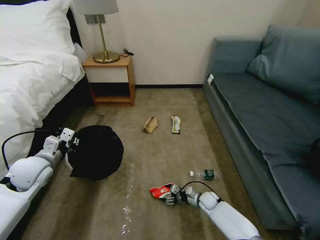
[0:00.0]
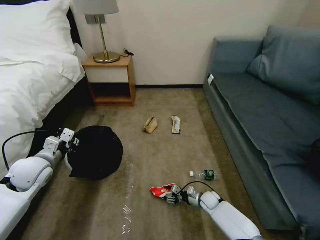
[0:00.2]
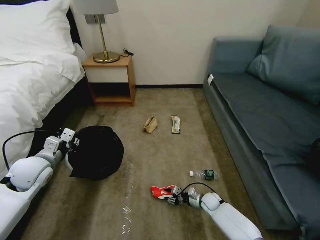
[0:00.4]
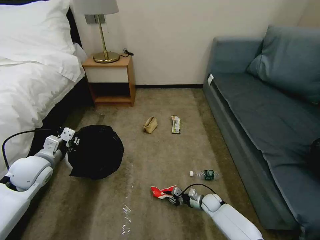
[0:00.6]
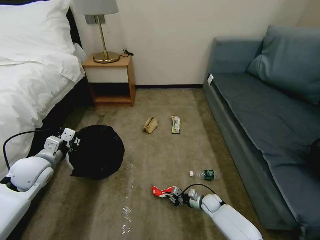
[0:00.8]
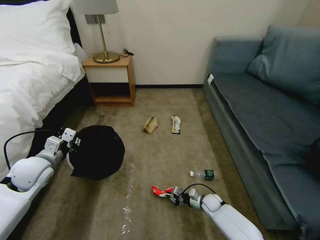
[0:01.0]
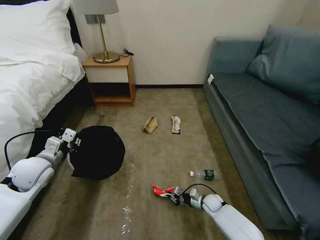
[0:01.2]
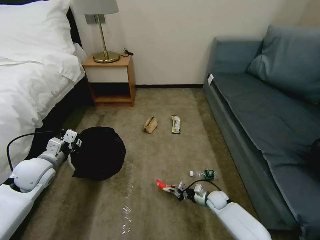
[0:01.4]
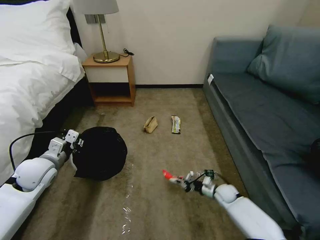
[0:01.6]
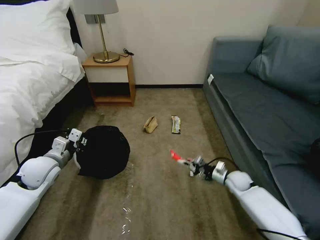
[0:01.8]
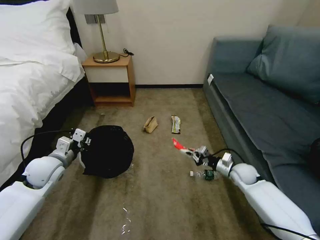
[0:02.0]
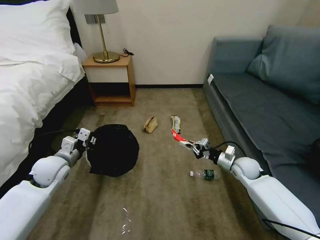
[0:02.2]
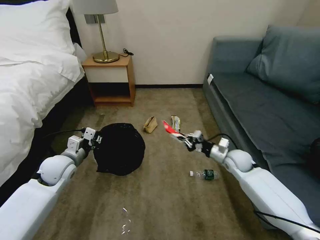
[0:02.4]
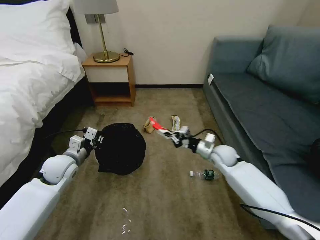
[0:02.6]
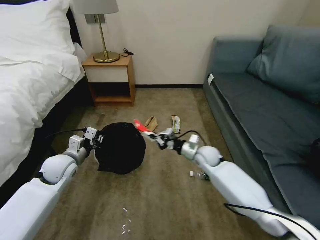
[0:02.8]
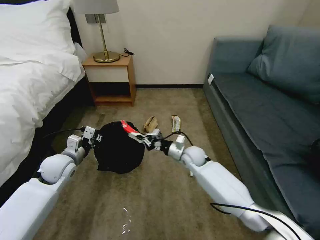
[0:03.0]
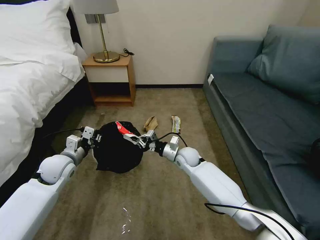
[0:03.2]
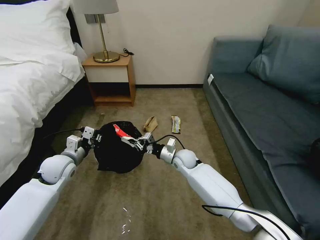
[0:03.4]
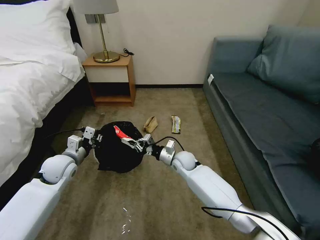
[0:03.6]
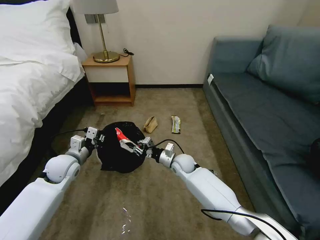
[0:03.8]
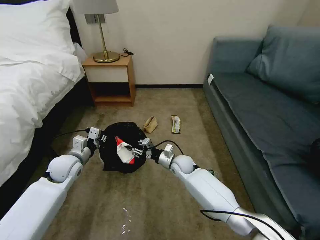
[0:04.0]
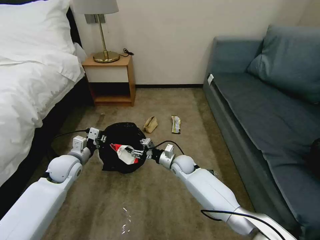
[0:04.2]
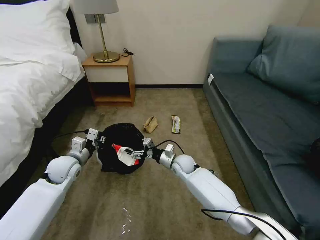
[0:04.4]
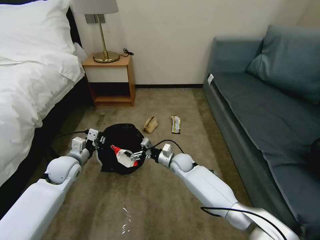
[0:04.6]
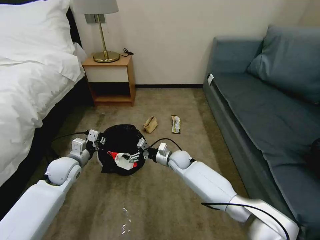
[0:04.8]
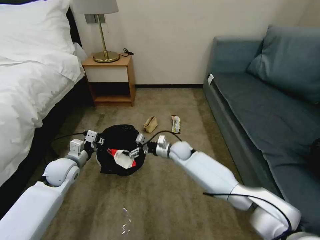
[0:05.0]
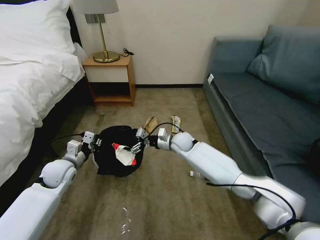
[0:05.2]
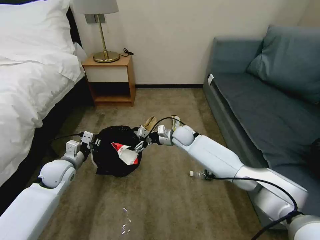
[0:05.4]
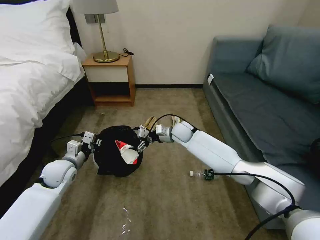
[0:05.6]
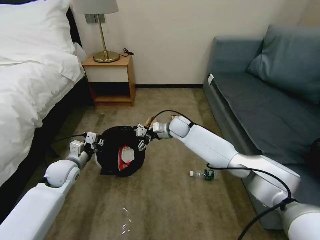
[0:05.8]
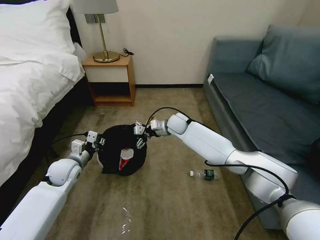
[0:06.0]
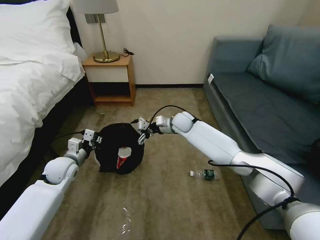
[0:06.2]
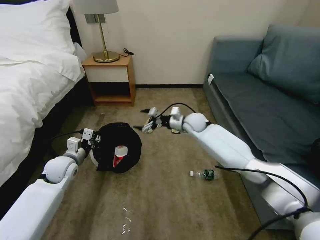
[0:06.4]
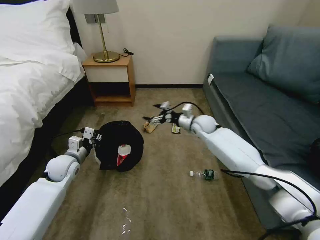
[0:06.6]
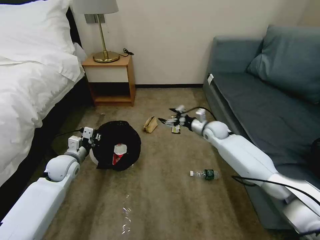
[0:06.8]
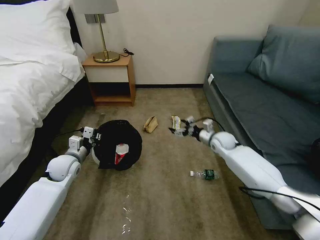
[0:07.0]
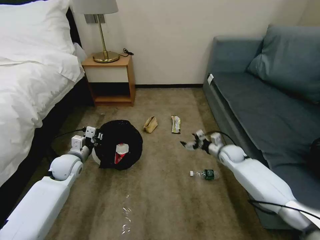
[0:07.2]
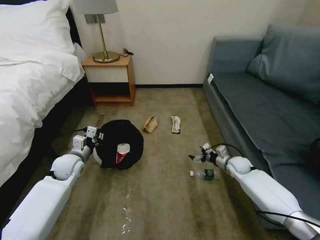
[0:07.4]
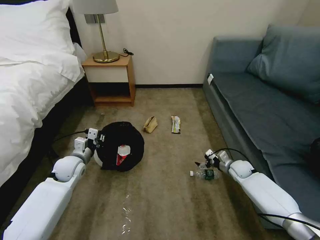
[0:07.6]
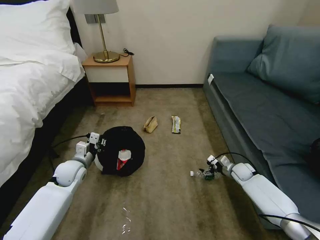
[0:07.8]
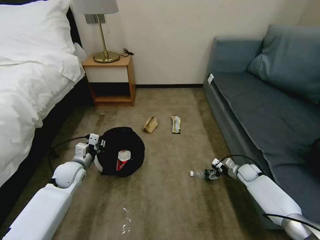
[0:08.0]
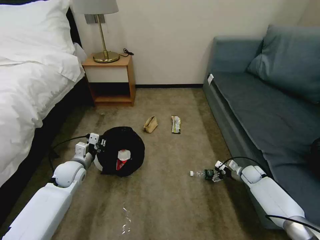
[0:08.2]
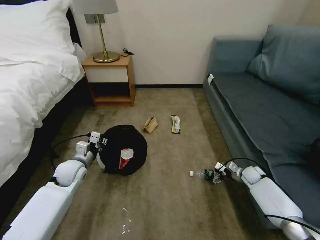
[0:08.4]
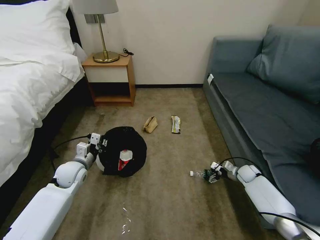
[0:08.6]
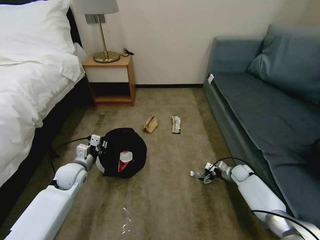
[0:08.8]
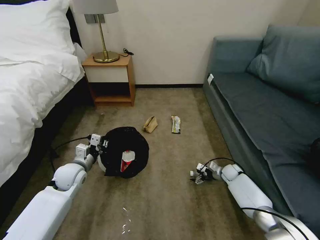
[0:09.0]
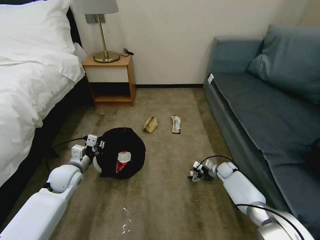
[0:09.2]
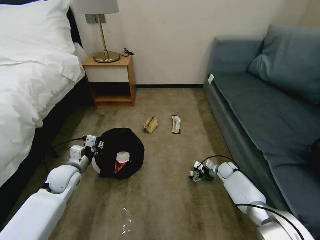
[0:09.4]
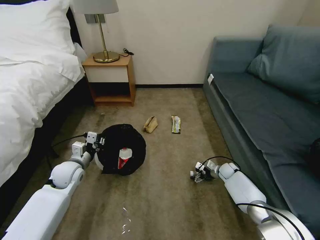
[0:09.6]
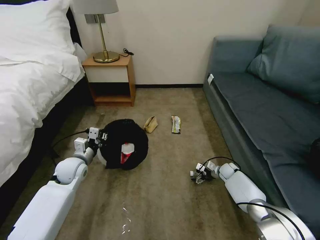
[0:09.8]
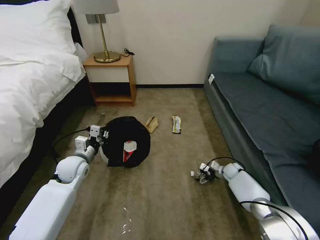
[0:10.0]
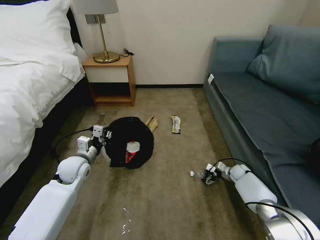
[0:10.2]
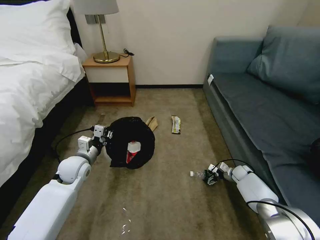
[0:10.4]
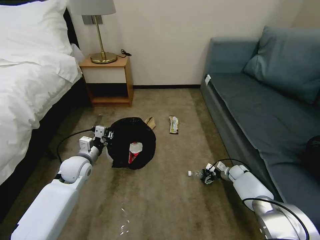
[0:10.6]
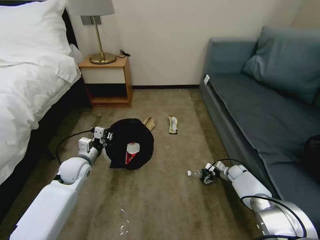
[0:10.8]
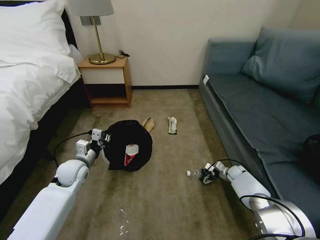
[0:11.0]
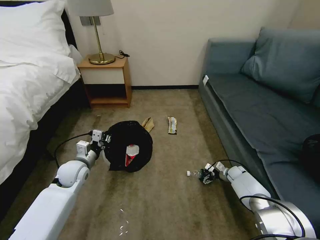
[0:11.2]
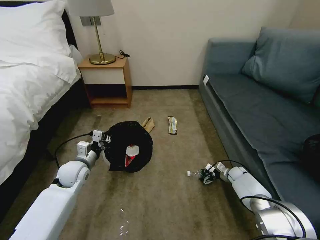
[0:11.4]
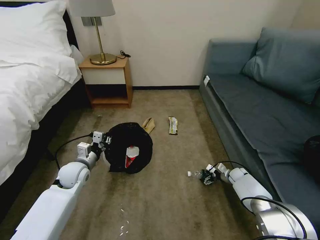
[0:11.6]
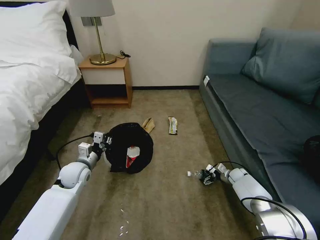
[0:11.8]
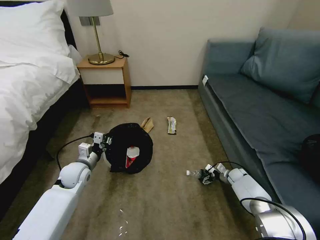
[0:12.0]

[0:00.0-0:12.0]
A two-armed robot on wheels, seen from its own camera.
Task of the whole recording: Pick up the trash bin, then pick up the garbage on the floor and place it into the trash bin.
0:00.0 to 0:01.6: The right gripper heads to the right, covering roughly 5 cm, and closes its fingers.
0:01.6 to 0:03.0: The right gripper travels upward, to the left and forward by approximately 25 cm; the left gripper ends up approximately 5 cm from where it was.
0:03.0 to 0:04.4: The right gripper ends up some 5 cm from where it was, and opens up.
0:04.4 to 0:06.0: The right gripper moves upward and forward, approximately 20 cm.
0:06.0 to 0:07.6: The right gripper heads to the right, downward and backward, covering some 35 cm.
0:07.6 to 0:09.0: The right gripper is displaced downward by about 5 cm, and reaches about 5 cm to the right, then returns.
0:09.0 to 0:10.4: The right gripper is displaced to the right by approximately 5 cm.
0:10.4 to 0:12.0: The grippers stay close to where they were, moving slightly.

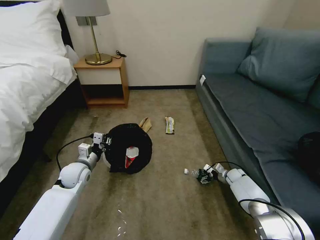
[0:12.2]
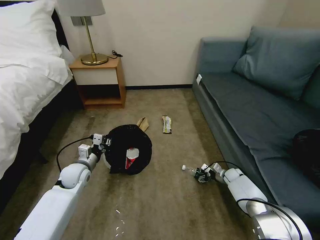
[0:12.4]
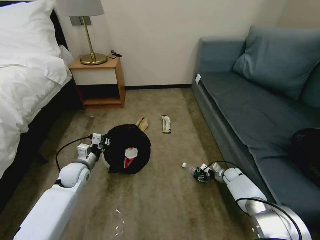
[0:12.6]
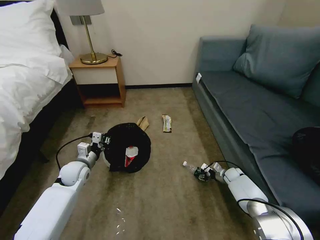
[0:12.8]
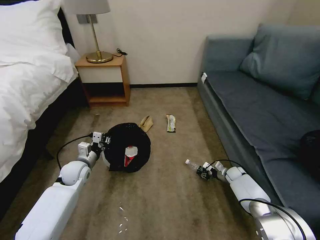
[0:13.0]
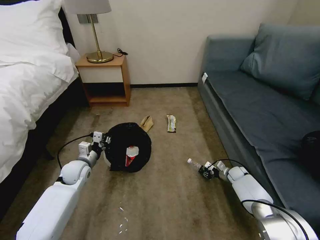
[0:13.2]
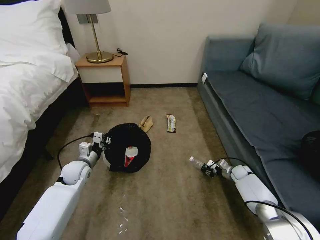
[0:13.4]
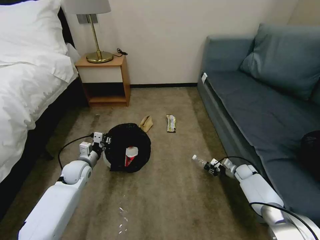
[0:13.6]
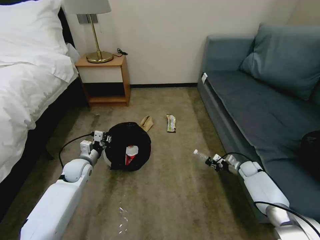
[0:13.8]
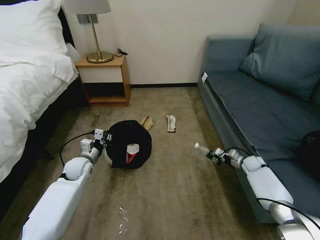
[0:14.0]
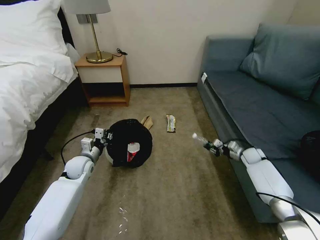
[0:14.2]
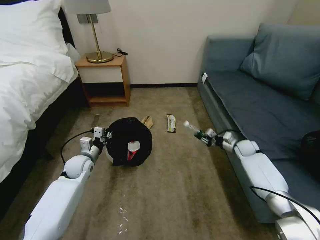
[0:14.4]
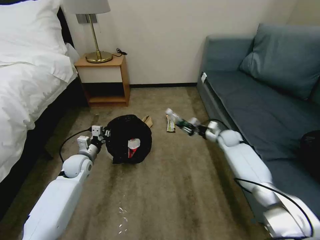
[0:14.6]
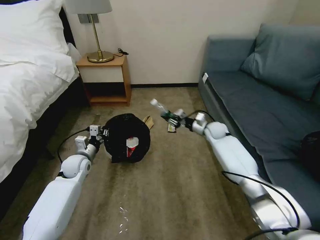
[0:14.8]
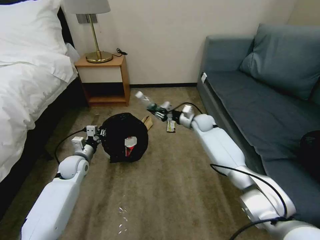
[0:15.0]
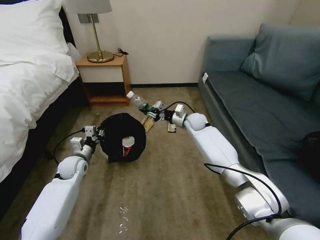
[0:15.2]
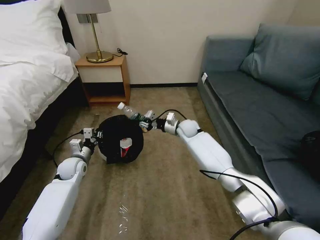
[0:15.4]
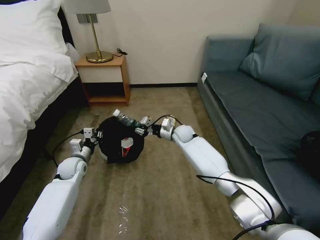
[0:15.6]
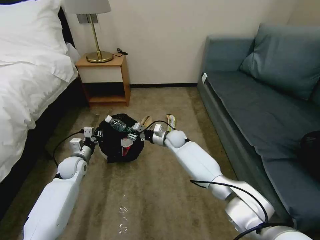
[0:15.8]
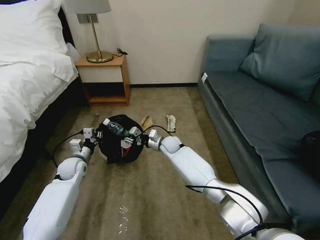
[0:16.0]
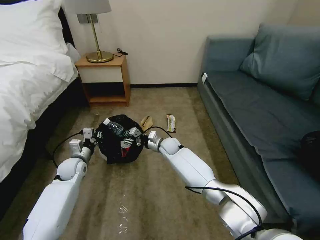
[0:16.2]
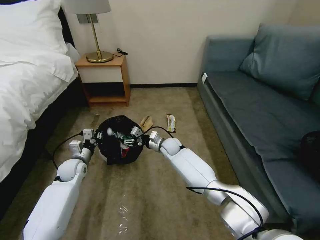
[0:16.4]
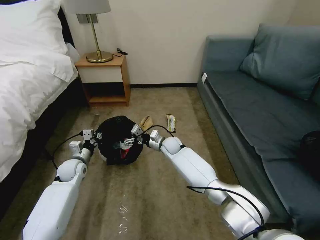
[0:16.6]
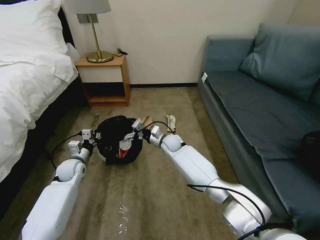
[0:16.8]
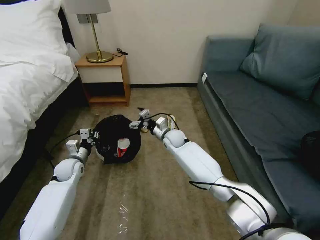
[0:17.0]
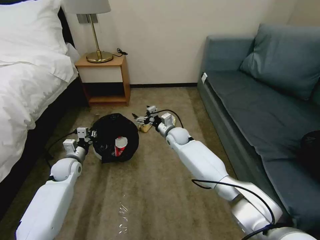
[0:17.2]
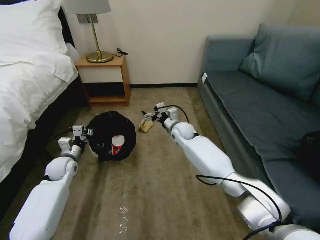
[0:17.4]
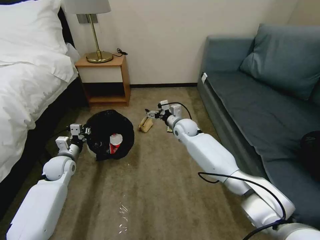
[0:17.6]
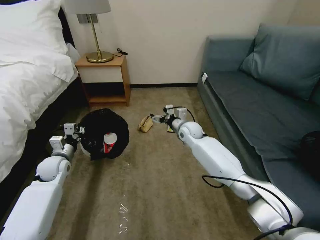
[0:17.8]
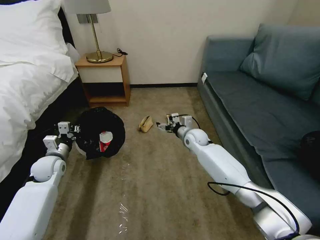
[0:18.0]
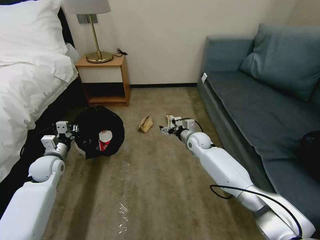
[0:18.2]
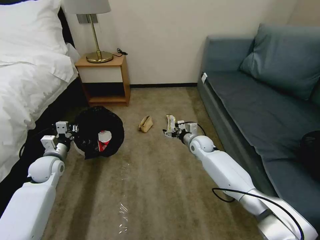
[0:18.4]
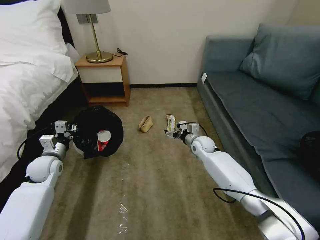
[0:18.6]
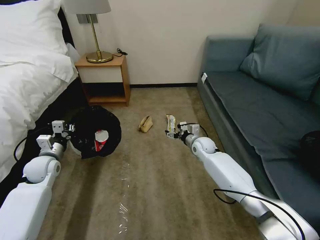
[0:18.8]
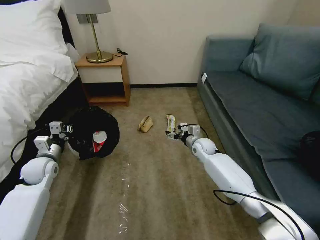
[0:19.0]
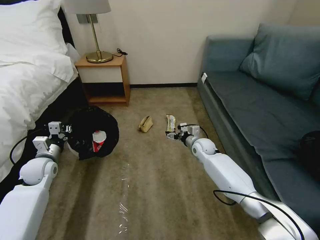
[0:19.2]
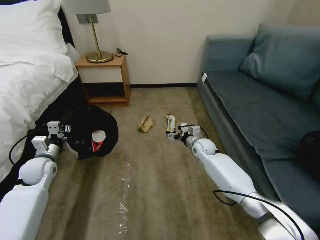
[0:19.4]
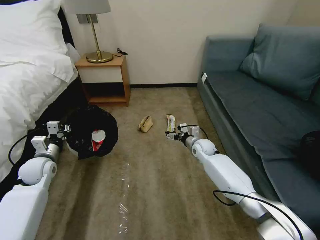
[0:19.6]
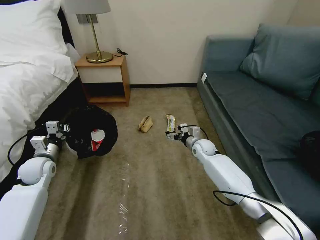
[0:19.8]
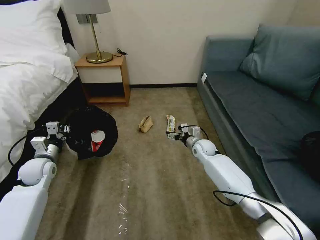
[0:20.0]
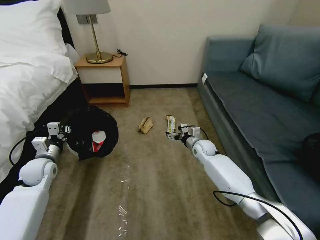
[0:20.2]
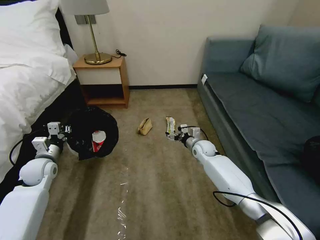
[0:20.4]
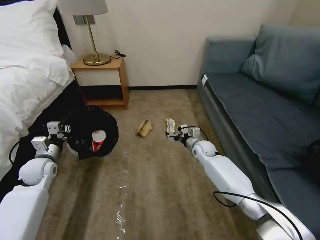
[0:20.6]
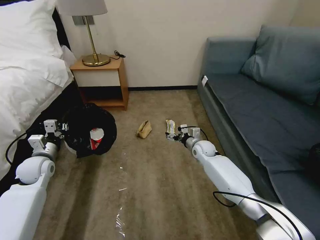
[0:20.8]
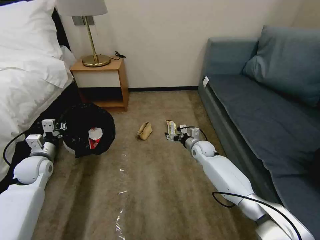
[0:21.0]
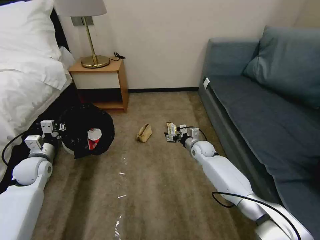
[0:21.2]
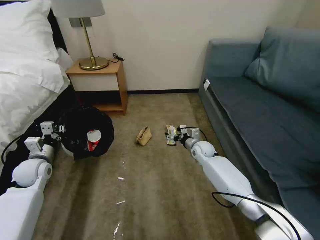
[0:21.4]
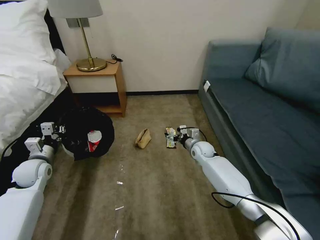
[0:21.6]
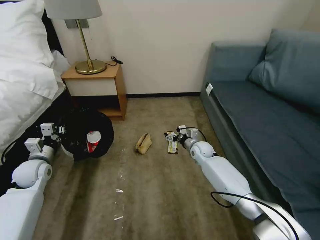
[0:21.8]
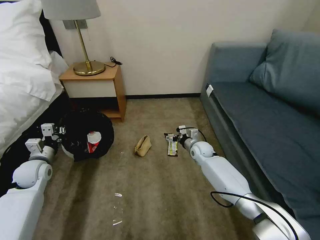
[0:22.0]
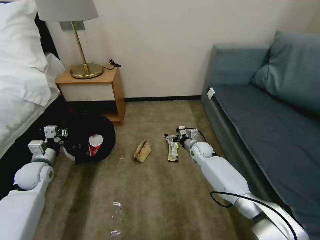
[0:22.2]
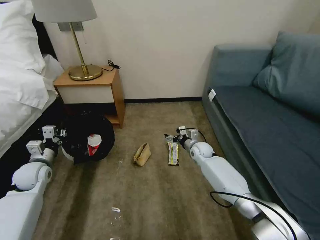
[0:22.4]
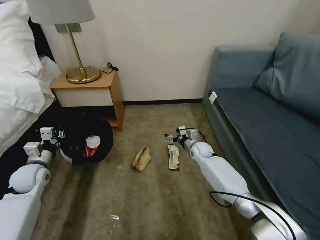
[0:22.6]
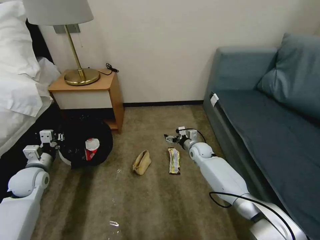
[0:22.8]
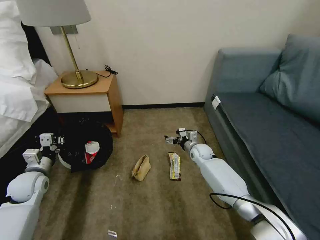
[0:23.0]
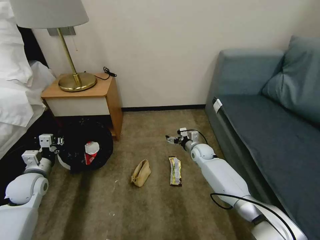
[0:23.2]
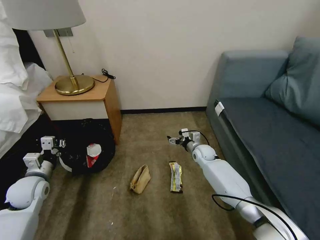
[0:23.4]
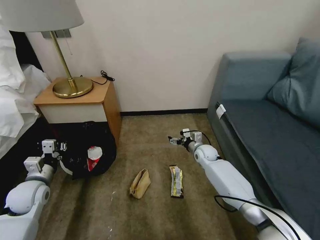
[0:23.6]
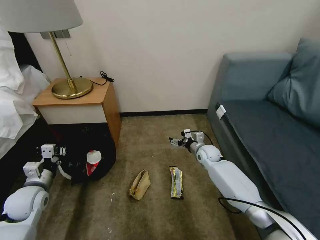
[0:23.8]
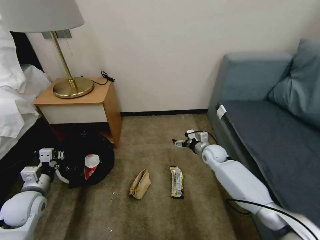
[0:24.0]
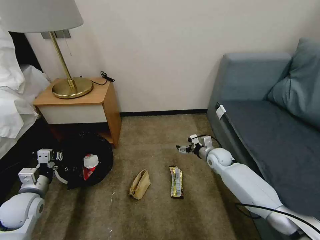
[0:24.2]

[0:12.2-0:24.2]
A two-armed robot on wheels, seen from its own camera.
Task of the whole recording: Pick up the trash bin, then pick up the garbage on the floor and place it into the trash bin.
0:12.2 to 0:13.8: The right gripper heads upward and to the right, covering roughly 10 cm, and closes.
0:13.8 to 0:15.2: The right gripper moves to the left, upward and forward, some 35 cm.
0:15.2 to 0:16.6: The right gripper is displaced to the left, downward and backward by roughly 15 cm, and opens its fingers.
0:16.6 to 0:18.2: The left gripper shifts approximately 10 cm upward and to the left, while the right gripper travels to the right by about 10 cm.
0:18.2 to 0:19.8: The grippers stay close to where they were, moving slightly.
0:19.8 to 0:21.2: The two grippers keep their place.
0:22.6 to 0:24.2: The right gripper shifts about 5 cm to the right. The left gripper travels backward by some 10 cm.
